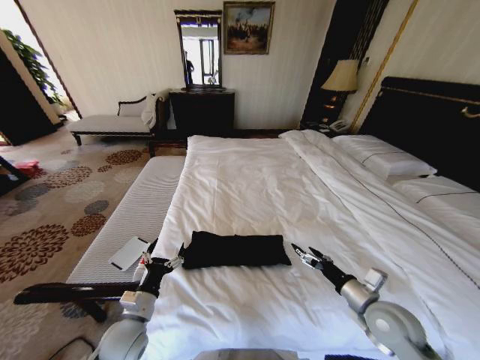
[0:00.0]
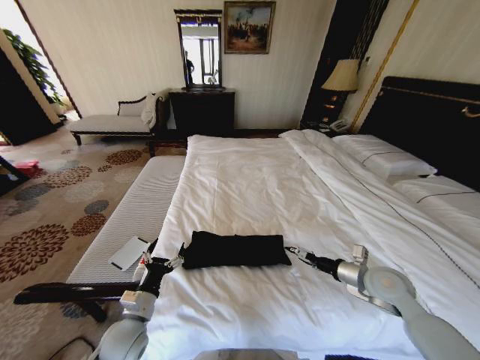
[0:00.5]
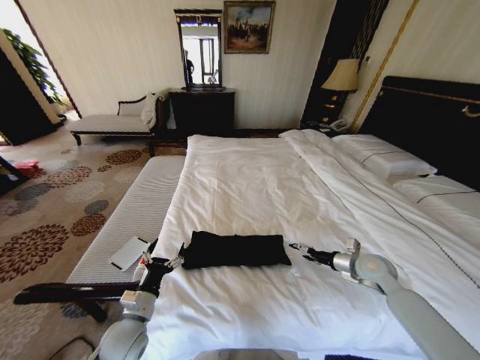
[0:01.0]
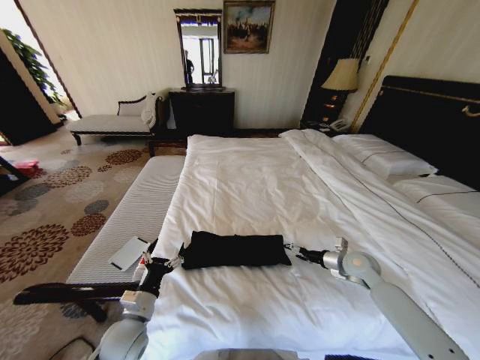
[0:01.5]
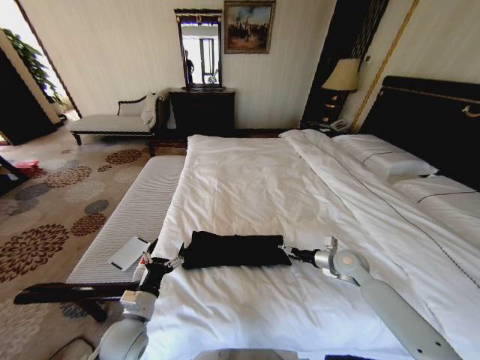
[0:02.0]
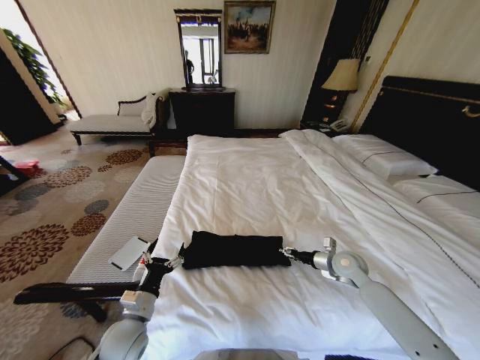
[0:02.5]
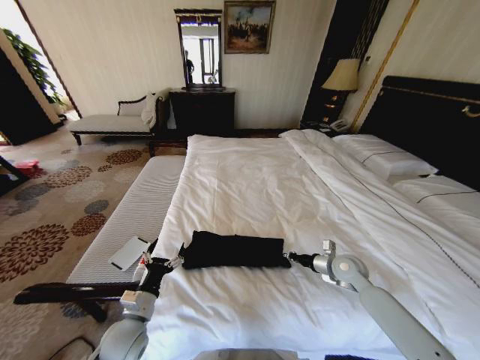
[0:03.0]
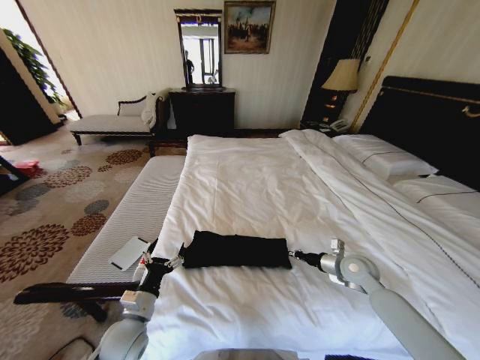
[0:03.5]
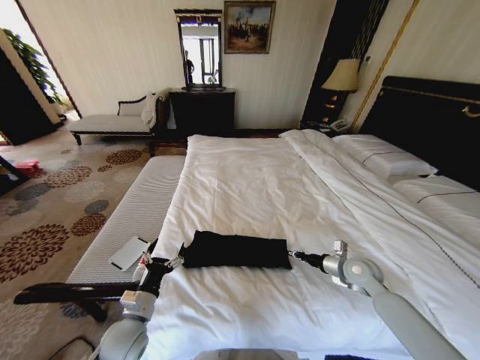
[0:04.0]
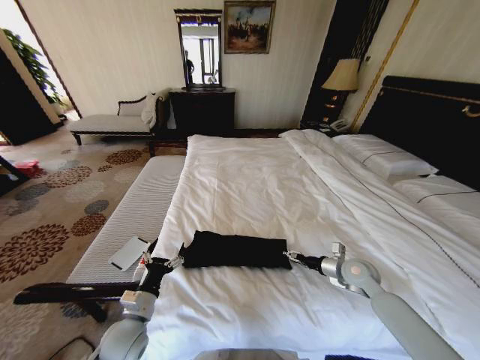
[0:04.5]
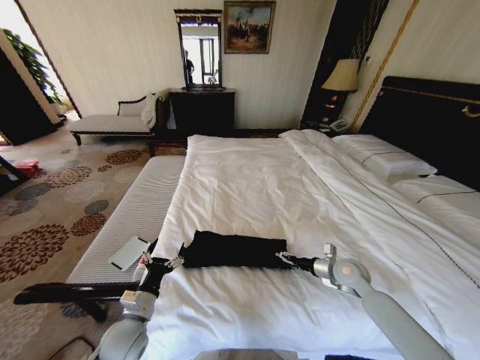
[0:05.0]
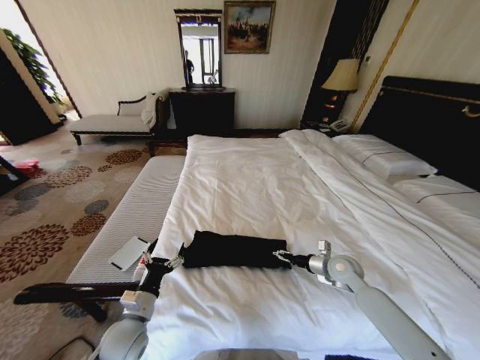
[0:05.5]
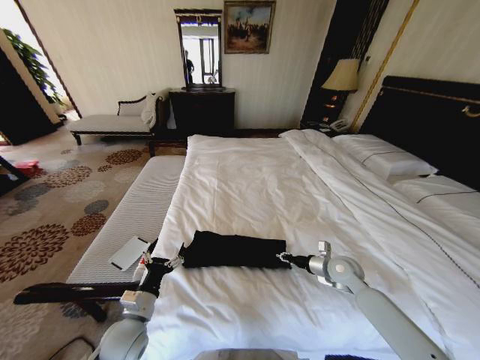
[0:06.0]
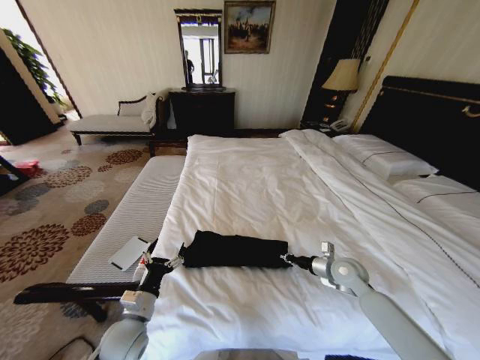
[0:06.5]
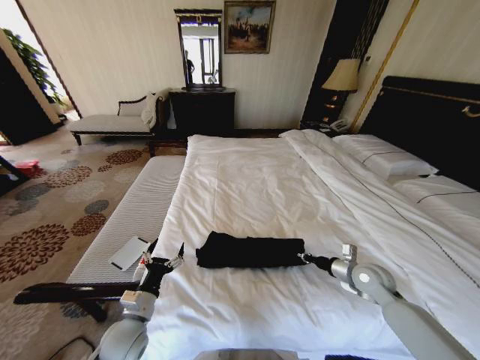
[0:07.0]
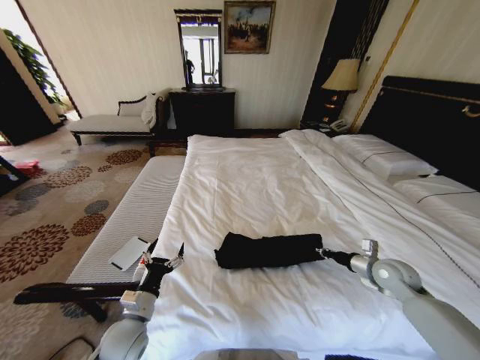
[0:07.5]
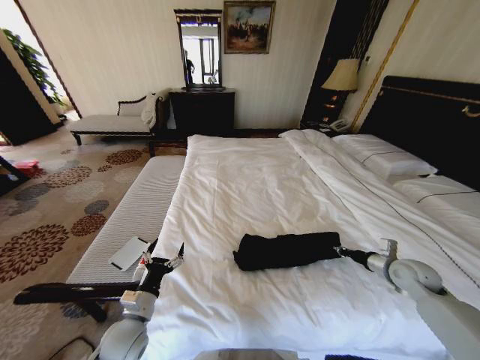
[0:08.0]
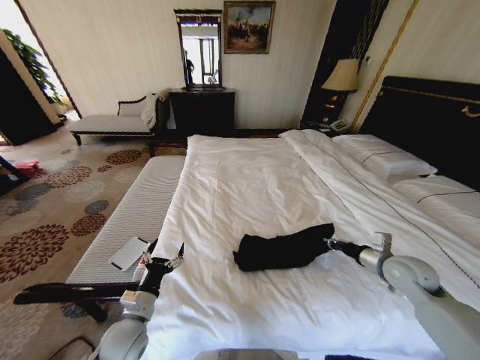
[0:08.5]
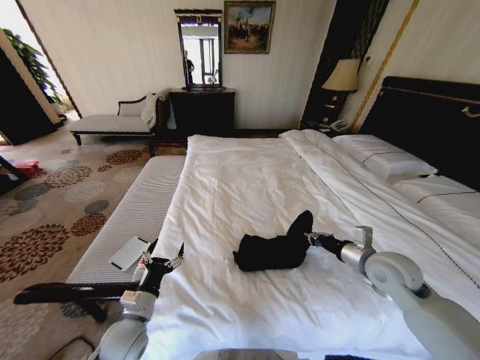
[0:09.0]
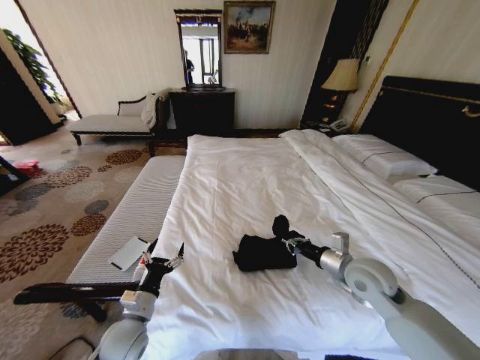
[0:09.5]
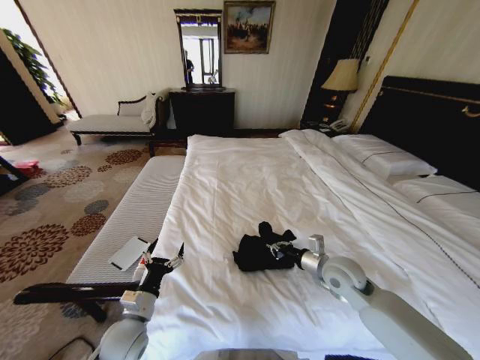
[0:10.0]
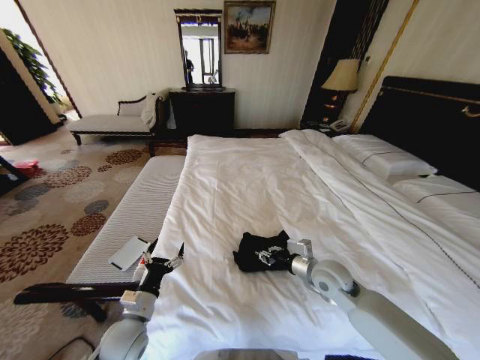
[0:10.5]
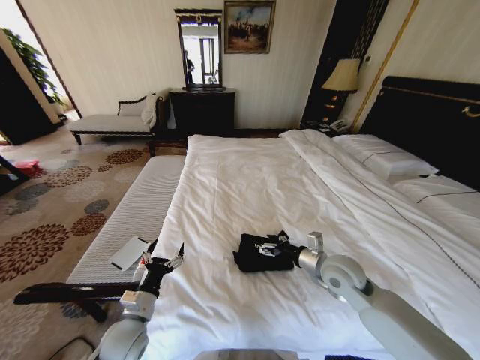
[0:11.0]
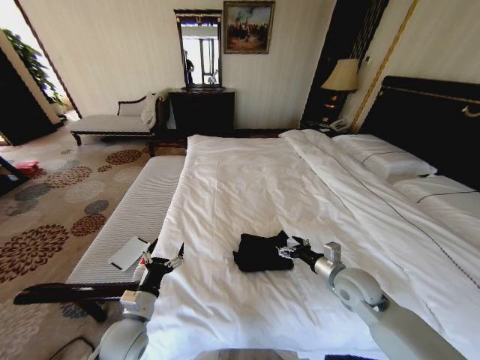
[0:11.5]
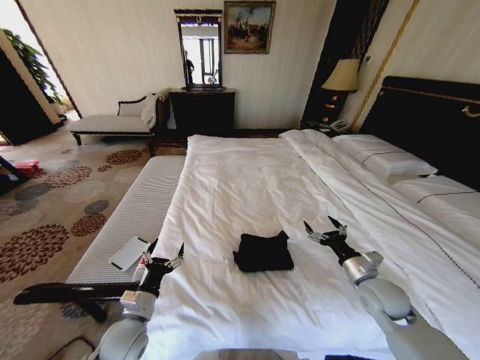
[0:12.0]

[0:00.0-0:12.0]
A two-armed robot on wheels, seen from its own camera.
Task of the whole recording: Fold the clothes on the bed.
0:00.0 to 0:02.0: The right gripper shifts about 15 cm forward.
0:02.0 to 0:04.0: The right gripper closes.
0:04.0 to 0:06.0: The right gripper opens and closes again.
0:06.0 to 0:08.0: The right gripper goes about 15 cm to the right.
0:08.0 to 0:10.0: The right gripper moves to the left, roughly 20 cm.
0:10.0 to 0:12.0: The right gripper travels to the right by roughly 10 cm, and opens.

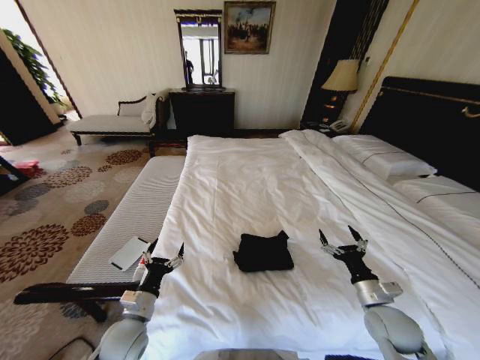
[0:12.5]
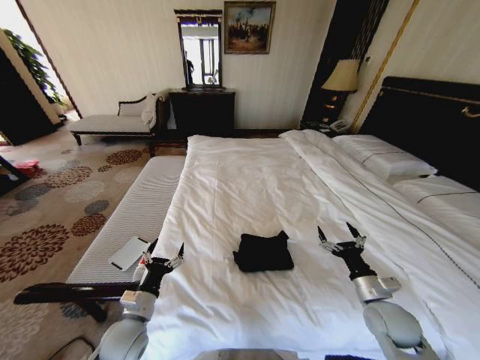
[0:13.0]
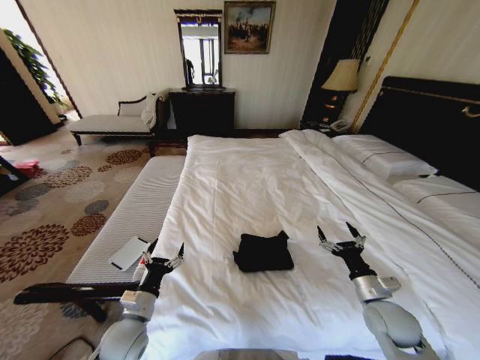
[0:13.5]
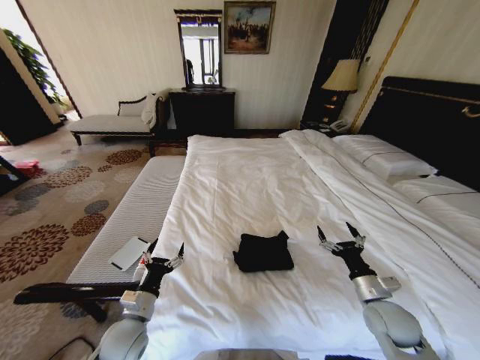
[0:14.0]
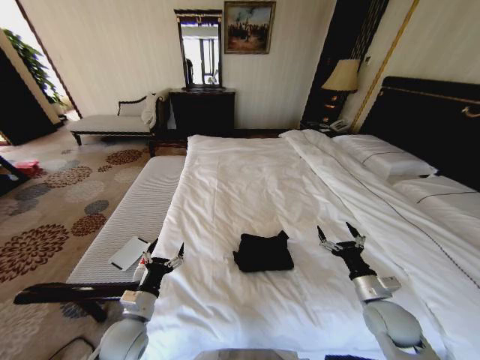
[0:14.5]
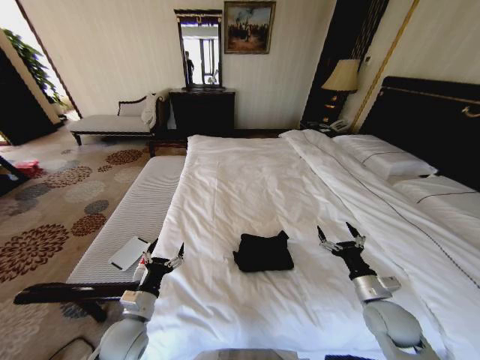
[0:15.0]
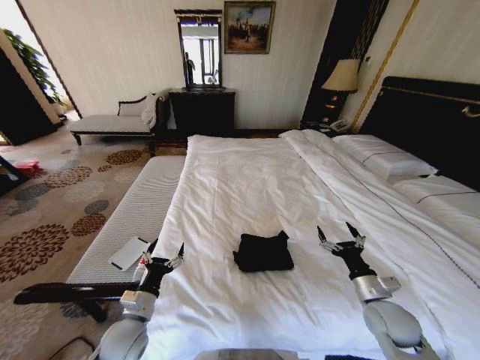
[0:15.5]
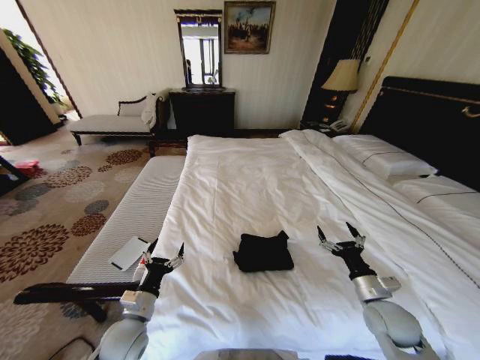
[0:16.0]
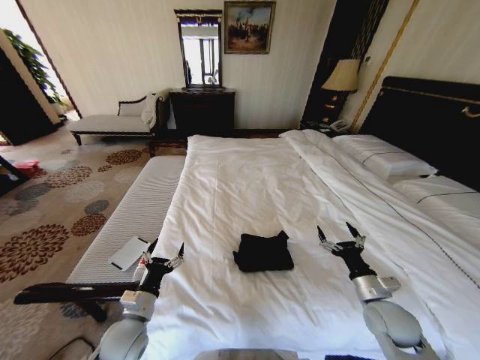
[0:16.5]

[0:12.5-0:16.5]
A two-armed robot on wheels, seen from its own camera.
Task of the whole recording: Fold the clothes on the bed.
0:12.5 to 0:16.5: Neither gripper changes place.
